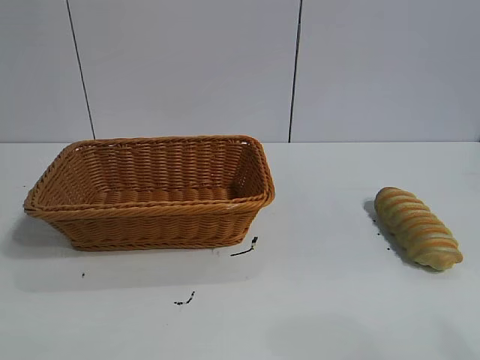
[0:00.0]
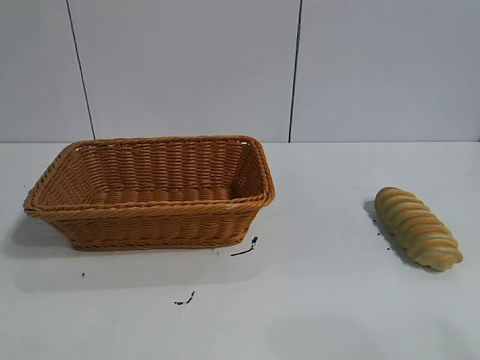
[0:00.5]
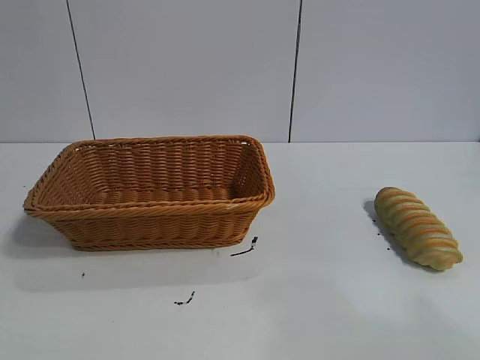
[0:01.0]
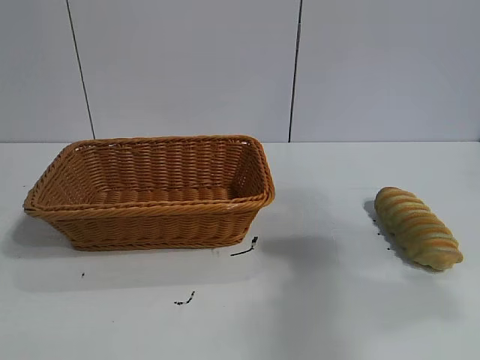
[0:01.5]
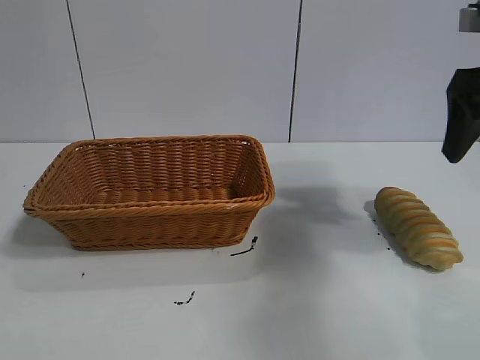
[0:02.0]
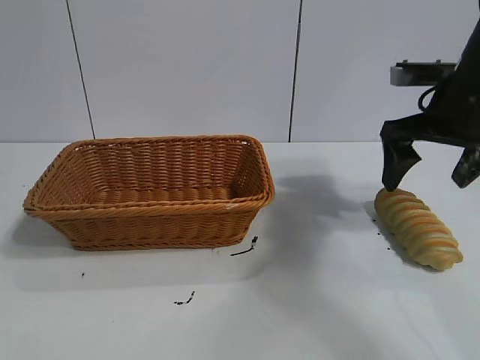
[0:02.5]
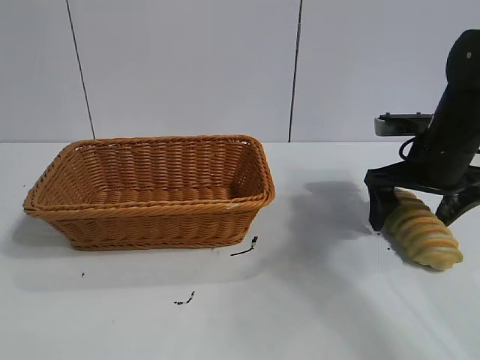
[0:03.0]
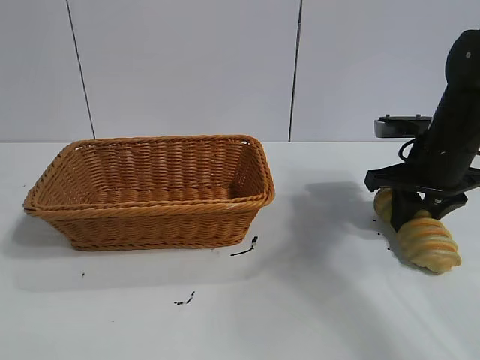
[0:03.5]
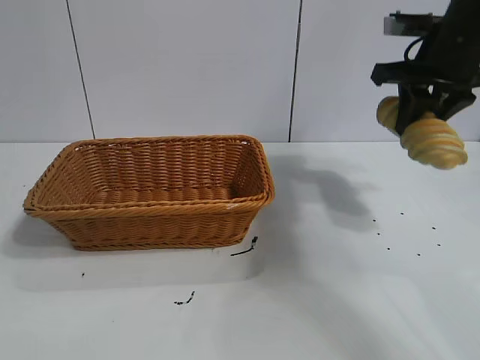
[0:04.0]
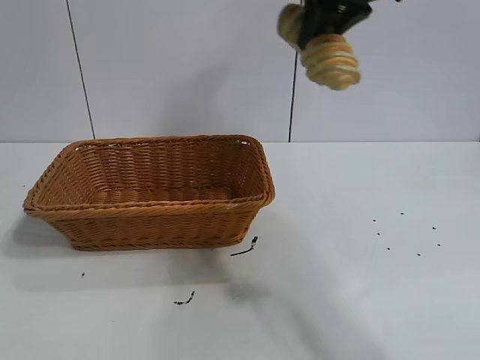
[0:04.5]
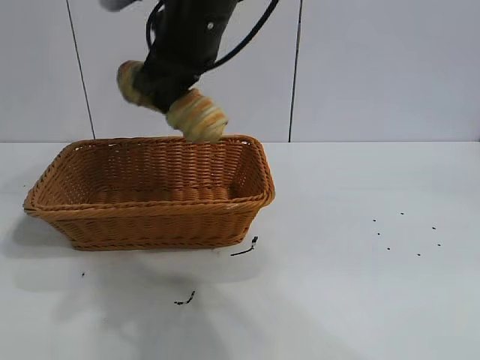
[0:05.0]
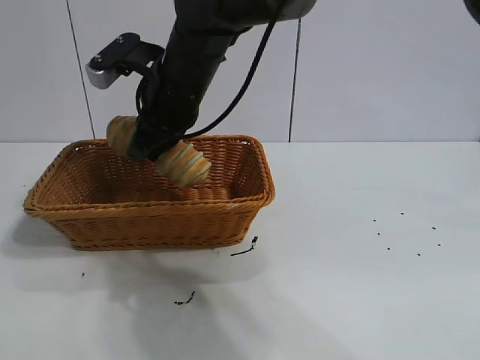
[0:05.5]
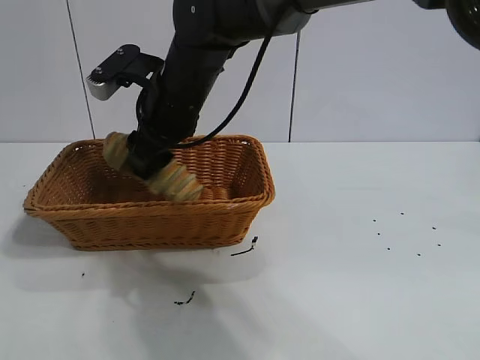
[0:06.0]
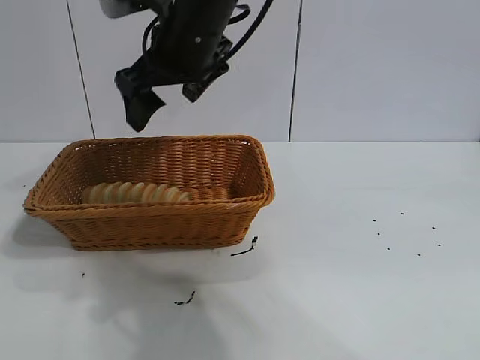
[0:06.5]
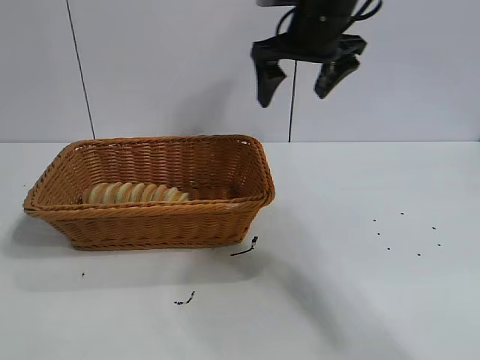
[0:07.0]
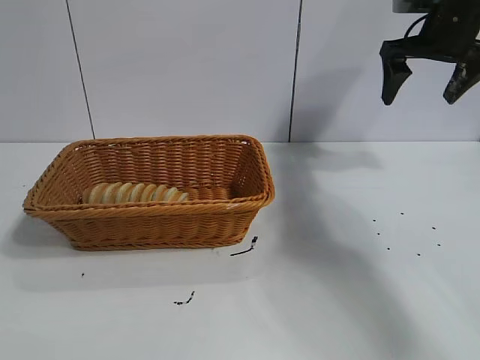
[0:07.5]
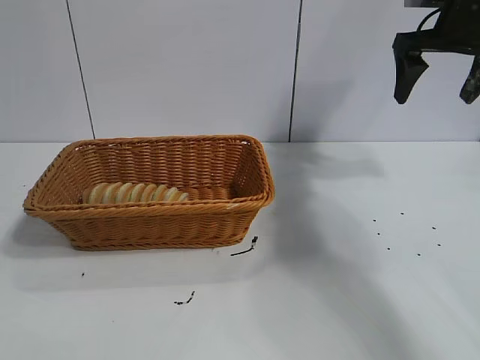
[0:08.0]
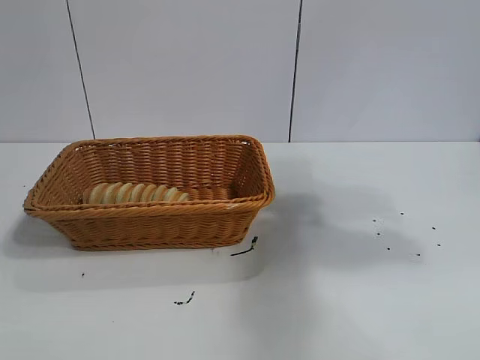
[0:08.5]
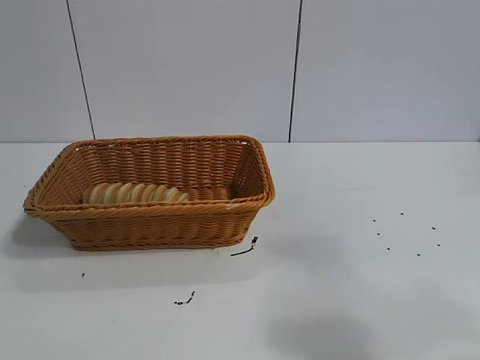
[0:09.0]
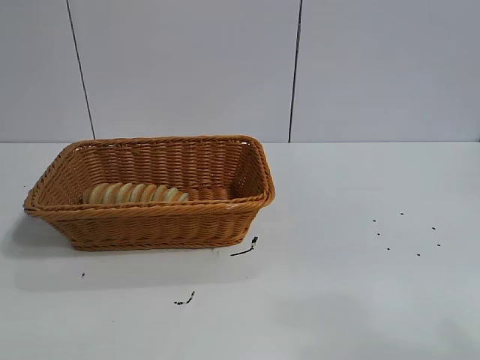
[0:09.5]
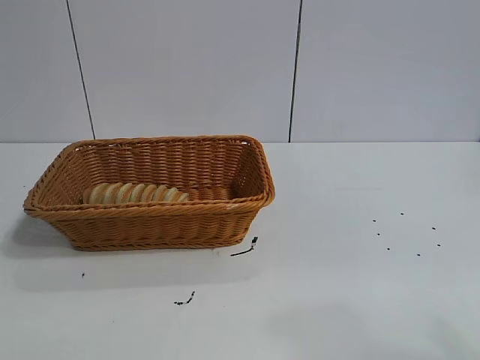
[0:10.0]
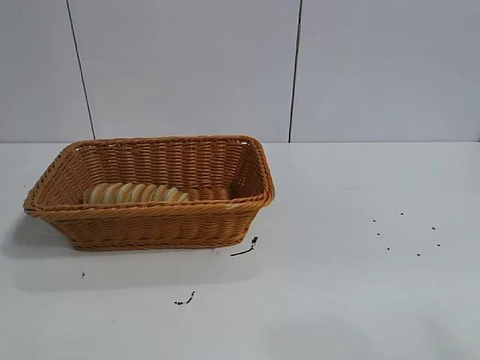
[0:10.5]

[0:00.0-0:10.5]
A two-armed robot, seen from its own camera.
Task of the whole recording: pick up the long bread and put it into the basket.
Step, 0:02.0 to 0:03.5: Grasp the long bread with right gripper.
Step, 0:04.0 to 0:06.0: Place the long bread in the basket with right gripper.
